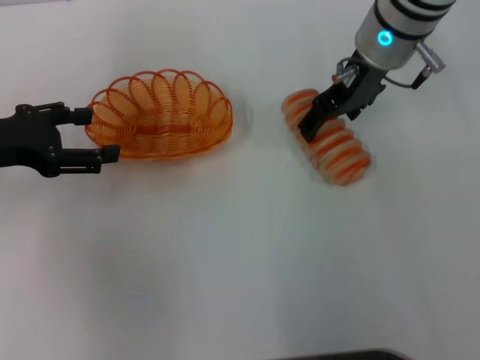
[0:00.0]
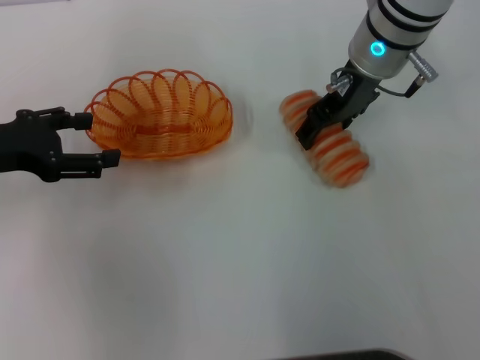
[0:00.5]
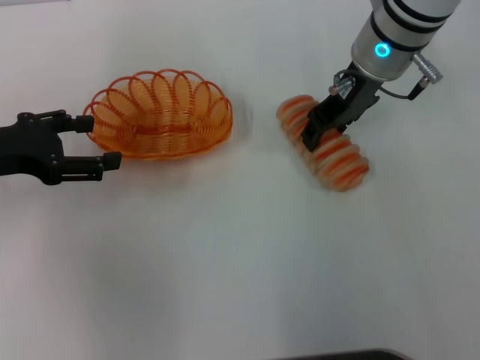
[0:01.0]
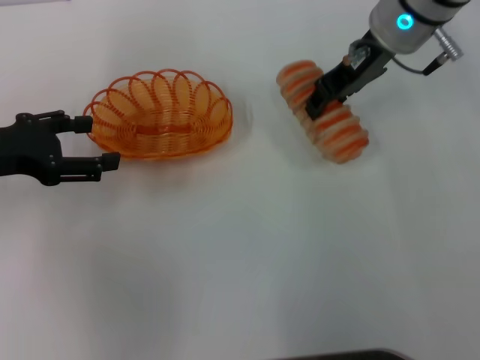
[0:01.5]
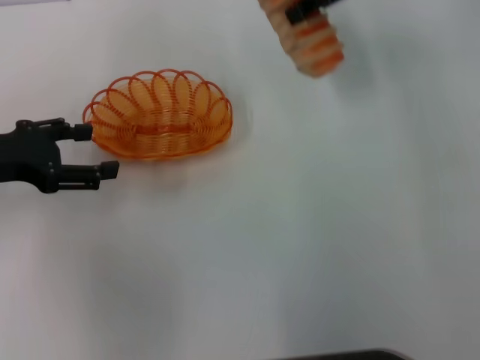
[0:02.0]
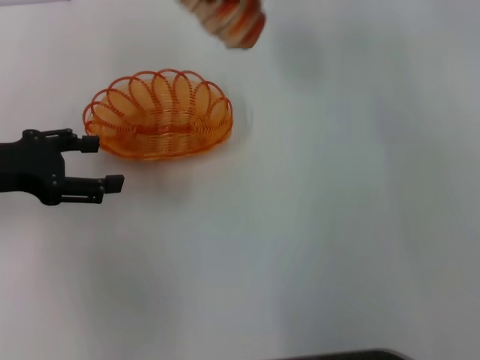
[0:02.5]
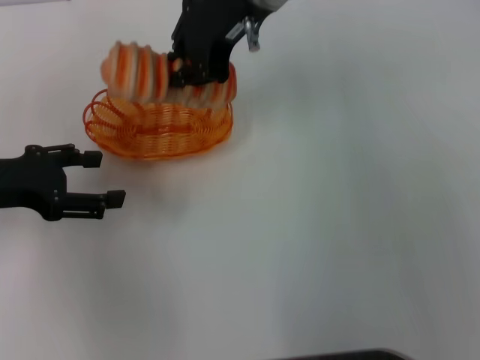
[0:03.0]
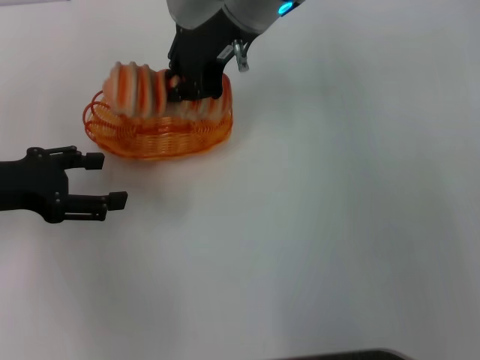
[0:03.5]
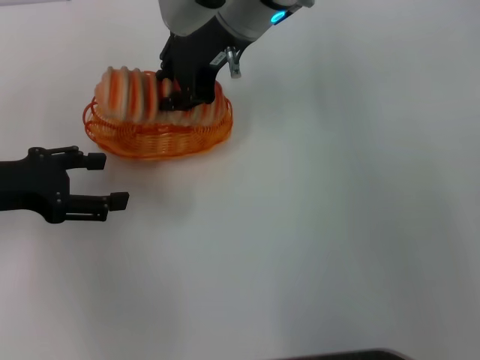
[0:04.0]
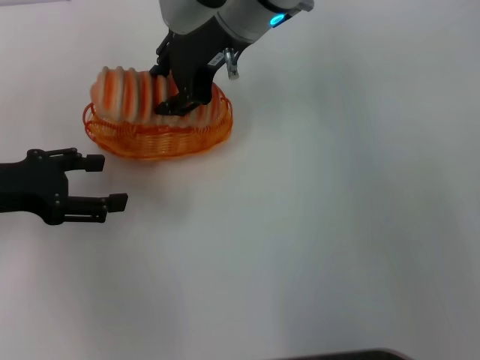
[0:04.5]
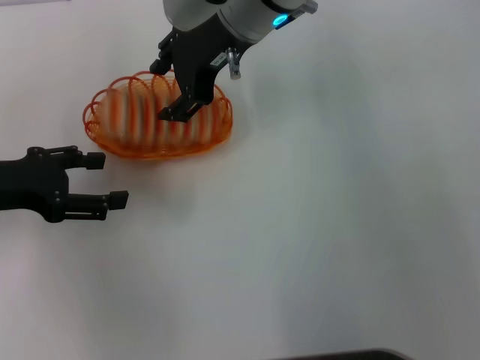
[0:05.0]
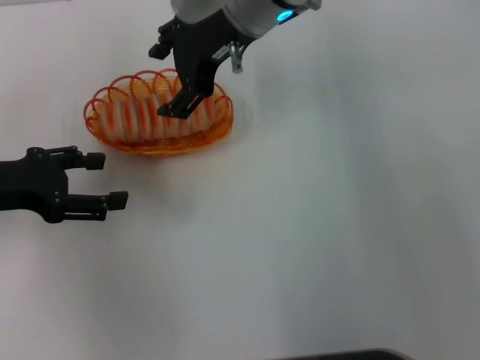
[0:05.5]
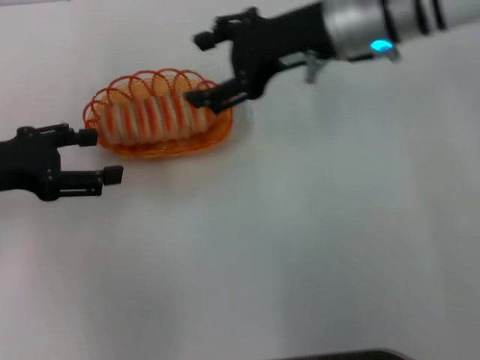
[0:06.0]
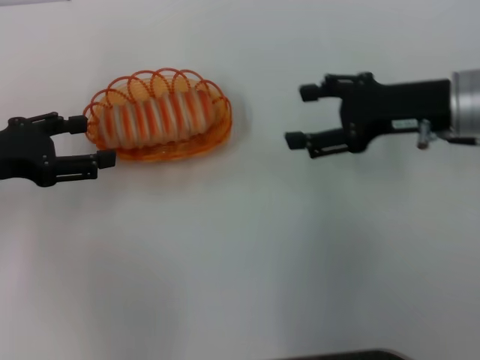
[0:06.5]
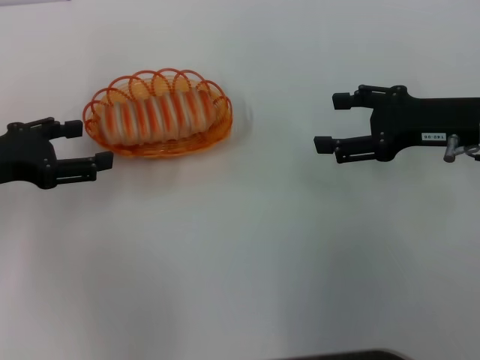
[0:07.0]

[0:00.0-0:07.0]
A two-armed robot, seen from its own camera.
Step, 0:02.0 to 0:06.0: Place the long bread into the basket with the right gripper.
0:00.0 to 0:02.0: The right gripper shifts about 10 cm upward, and closes its fingers.
0:02.0 to 0:03.5: The right gripper heads to the left, covering roughly 15 cm.
0:03.5 to 0:05.0: The right gripper opens.
0:05.0 to 0:07.0: The right gripper moves to the right and backward, roughly 25 cm, and opens its fingers.
